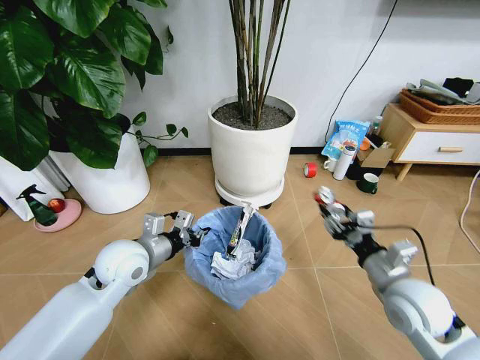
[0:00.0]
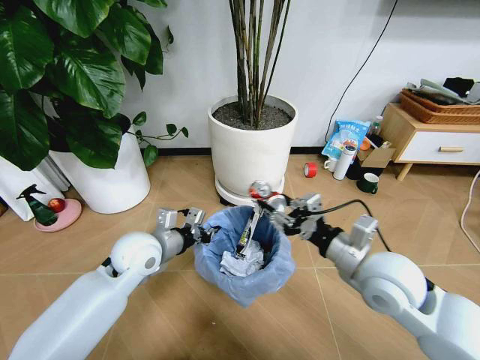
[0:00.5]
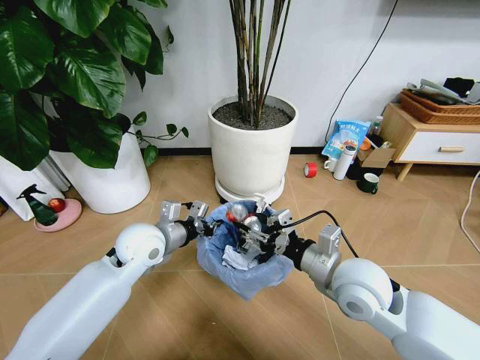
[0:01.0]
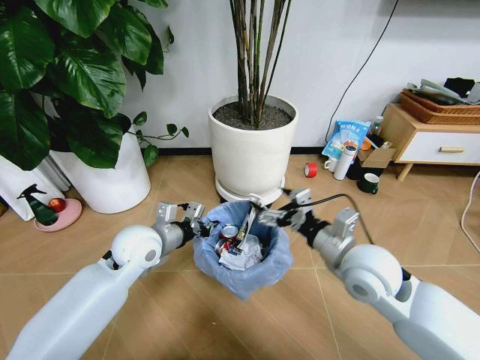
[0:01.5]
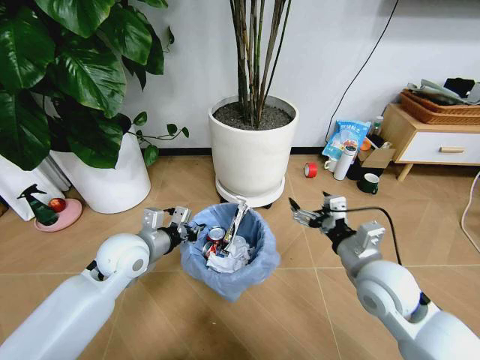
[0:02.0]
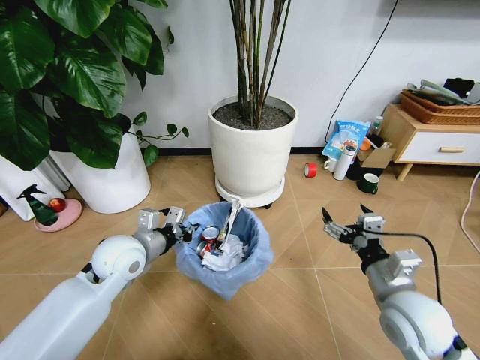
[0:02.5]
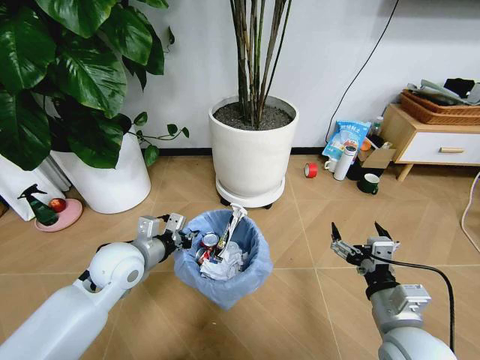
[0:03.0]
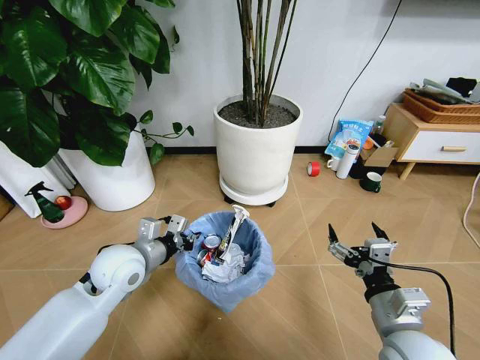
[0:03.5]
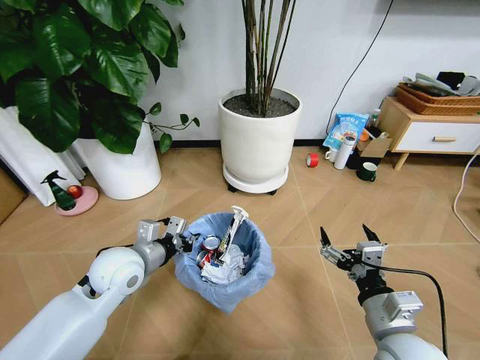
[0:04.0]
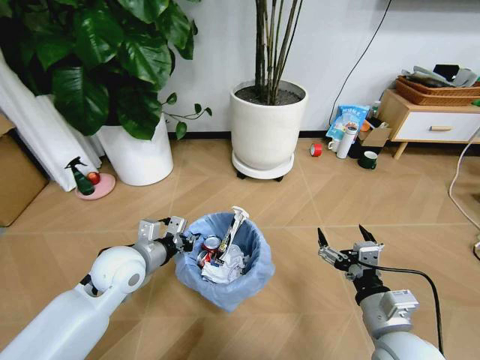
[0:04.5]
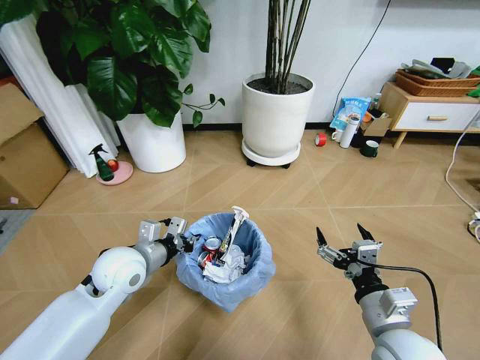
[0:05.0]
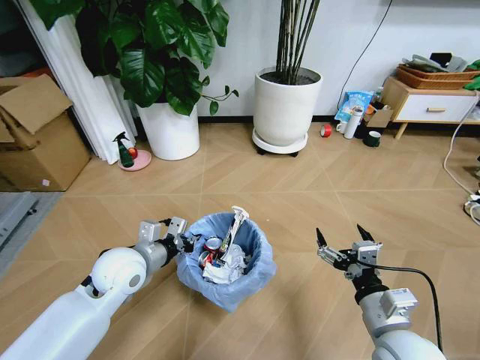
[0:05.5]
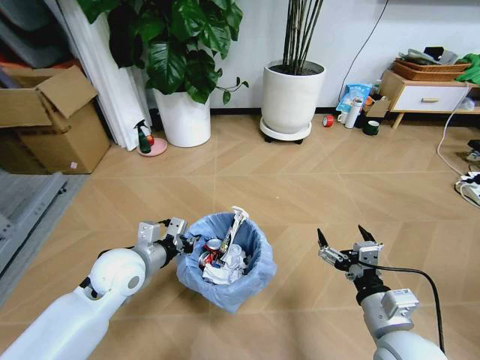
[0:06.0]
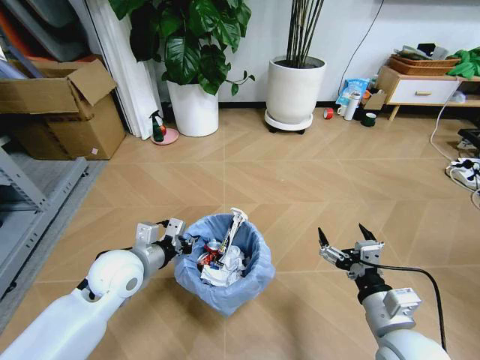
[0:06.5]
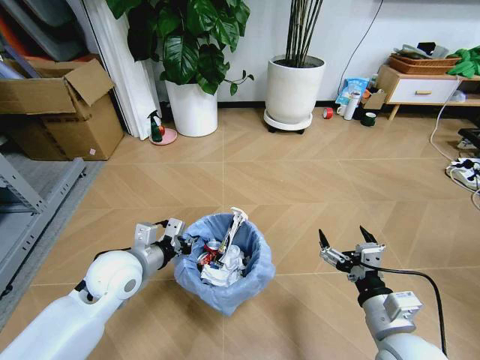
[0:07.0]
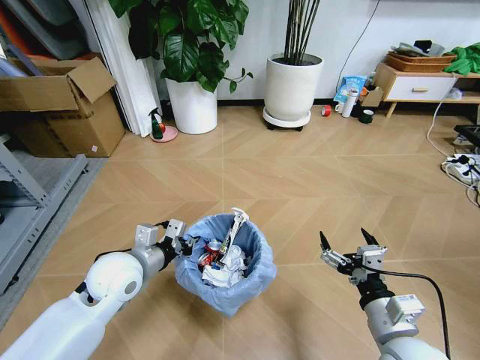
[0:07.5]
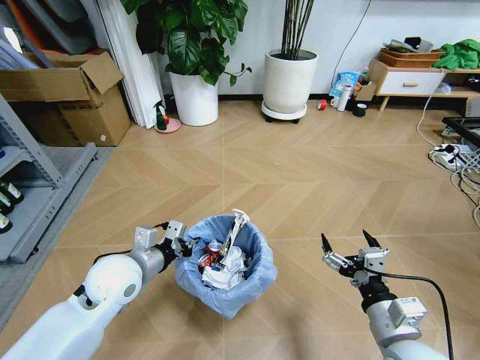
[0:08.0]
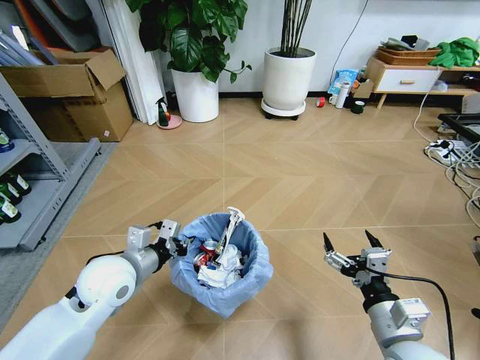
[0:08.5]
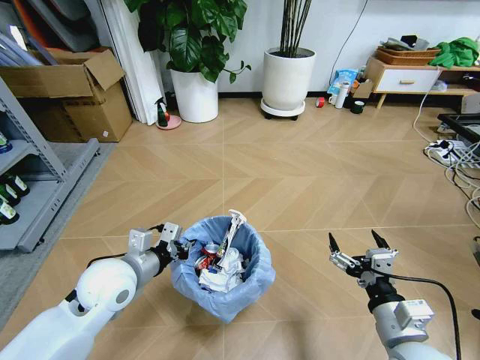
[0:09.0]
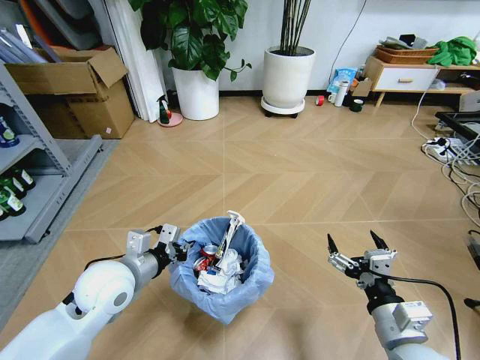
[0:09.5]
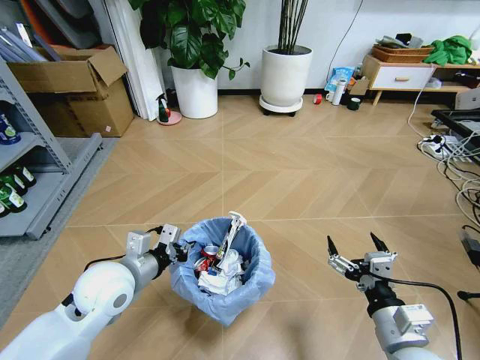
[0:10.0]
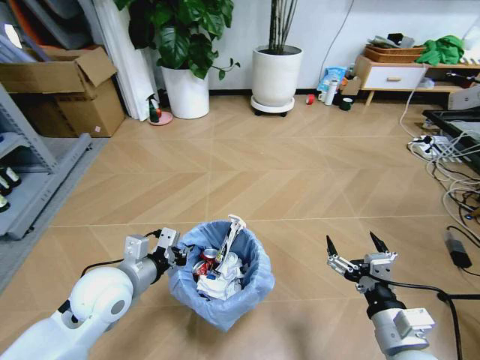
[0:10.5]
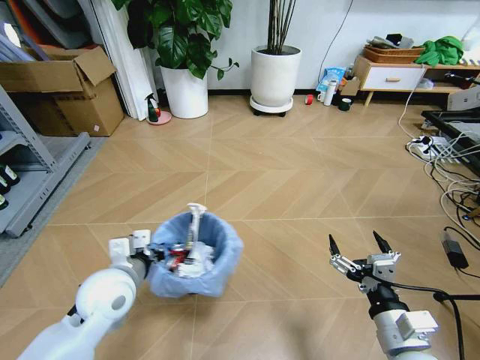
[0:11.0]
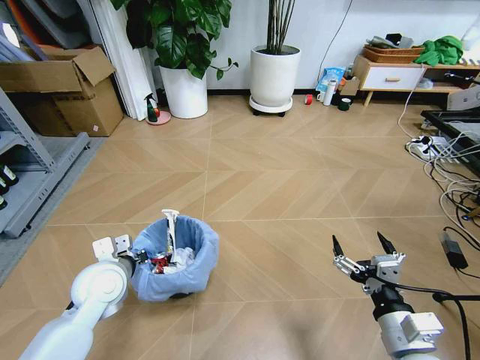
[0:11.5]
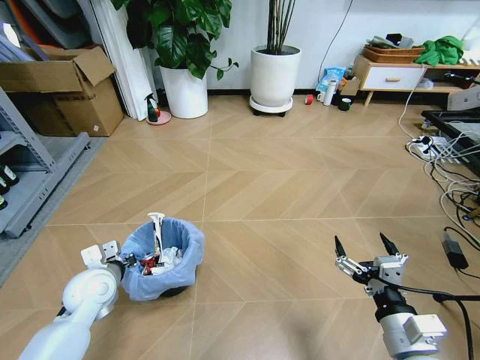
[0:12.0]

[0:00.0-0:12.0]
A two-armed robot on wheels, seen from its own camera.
Task of the whole recording: Pick up the trash bin and place the garbage on the floor into it.
0:00.0 to 0:02.0: The right gripper moves to the left, roughly 5 cm, and opens its fingers.
0:02.0 to 0:04.0: The right gripper travels backward by approximately 10 cm.
0:10.0 to 0:12.0: The left gripper goes roughly 10 cm downward and to the left.

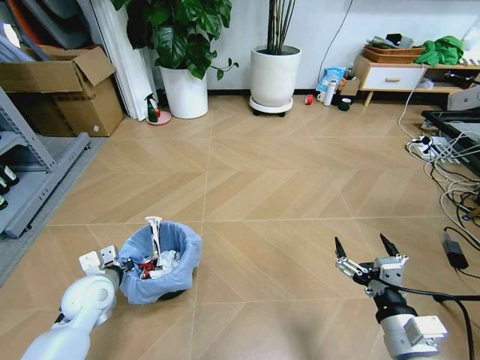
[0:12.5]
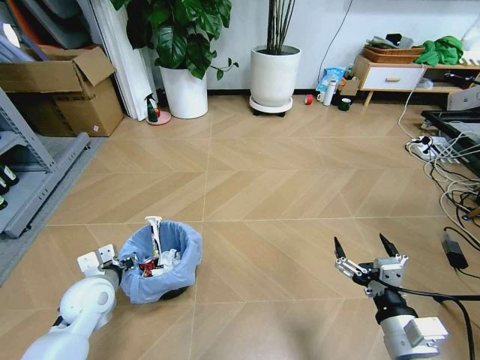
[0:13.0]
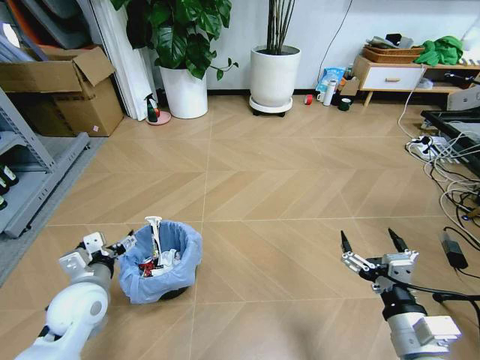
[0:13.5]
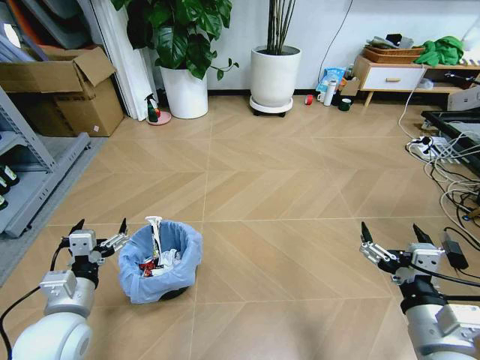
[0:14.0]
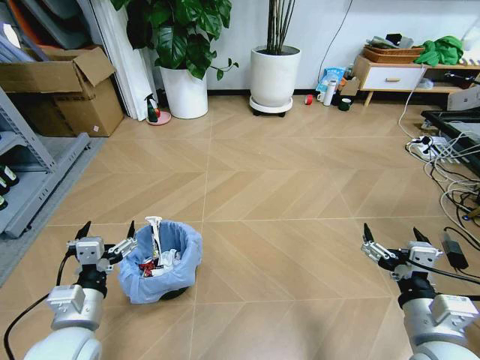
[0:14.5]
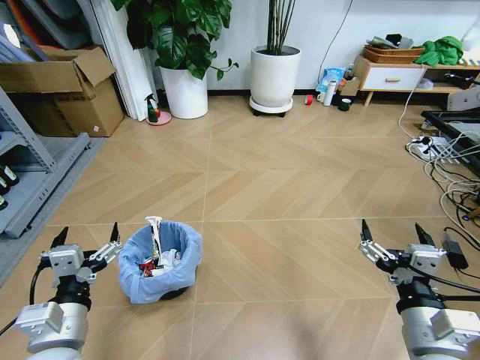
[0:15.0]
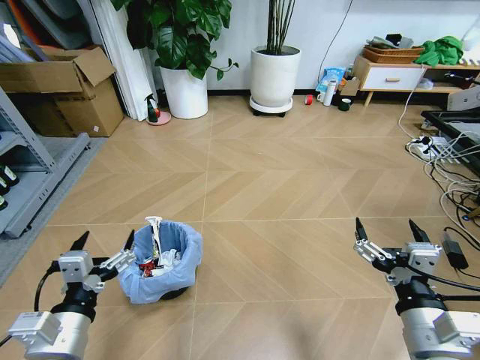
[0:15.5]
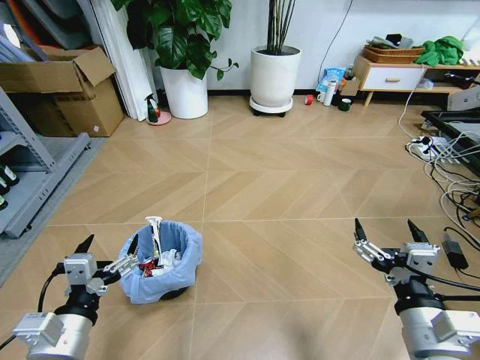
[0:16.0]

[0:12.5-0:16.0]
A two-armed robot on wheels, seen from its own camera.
Task of the whole recording: Pick up the trash bin and place the garbage on the floor into it.
0:12.5 to 0:14.5: The left gripper goes some 15 cm backward and upward, and opens its fingers.
0:14.5 to 0:16.0: The left gripper moves backward, approximately 5 cm.

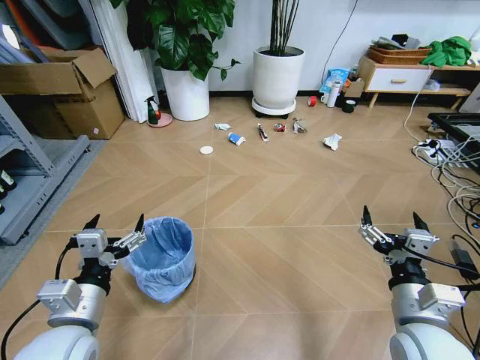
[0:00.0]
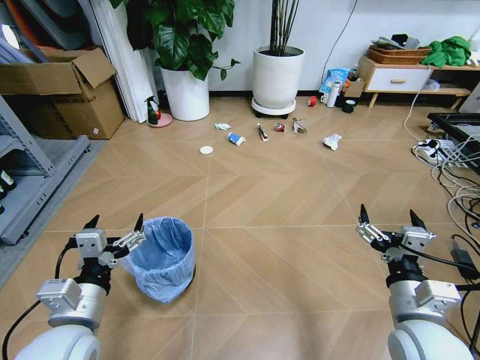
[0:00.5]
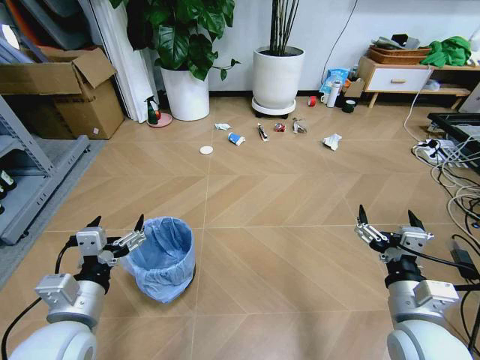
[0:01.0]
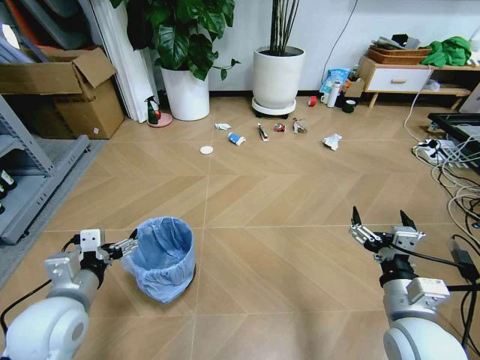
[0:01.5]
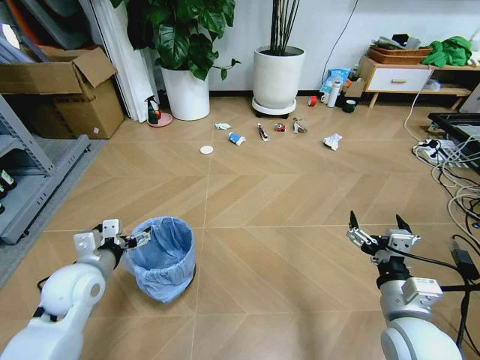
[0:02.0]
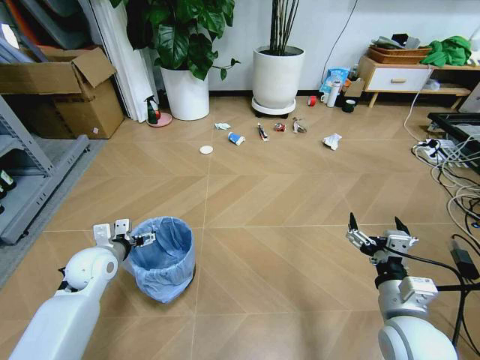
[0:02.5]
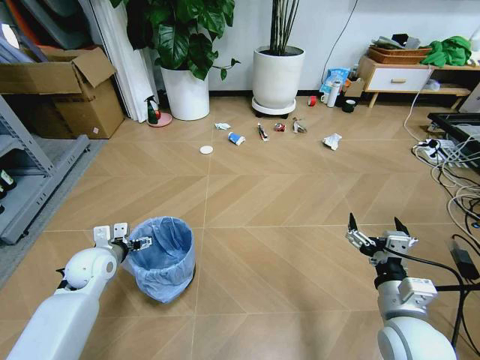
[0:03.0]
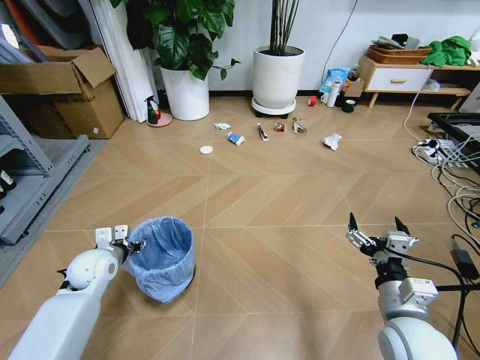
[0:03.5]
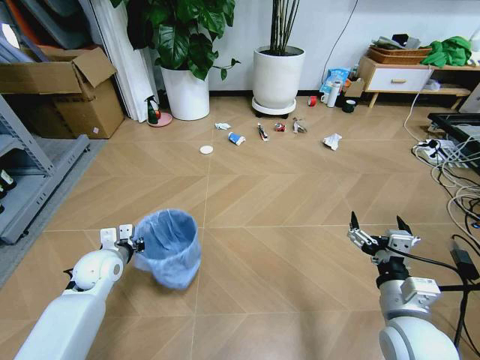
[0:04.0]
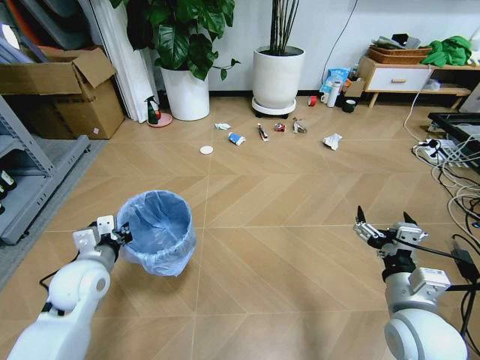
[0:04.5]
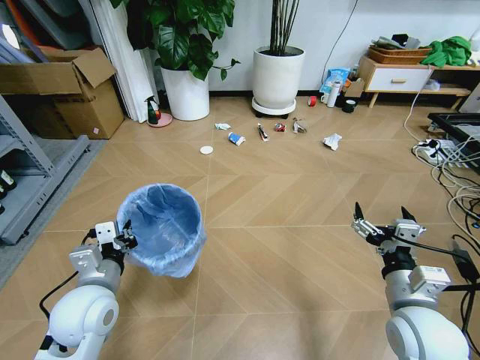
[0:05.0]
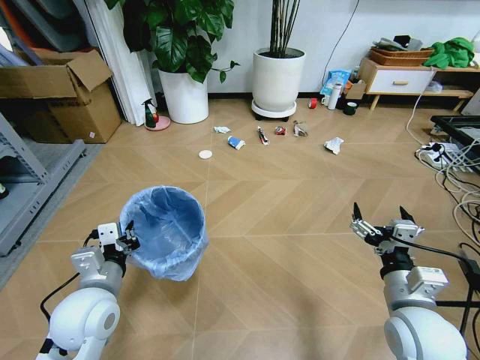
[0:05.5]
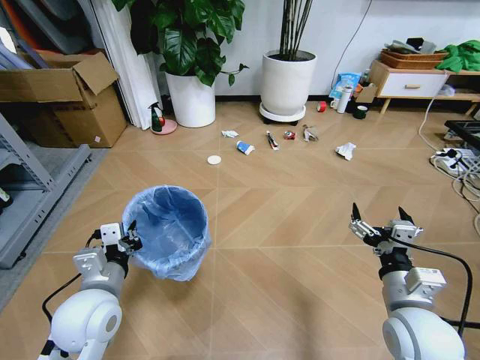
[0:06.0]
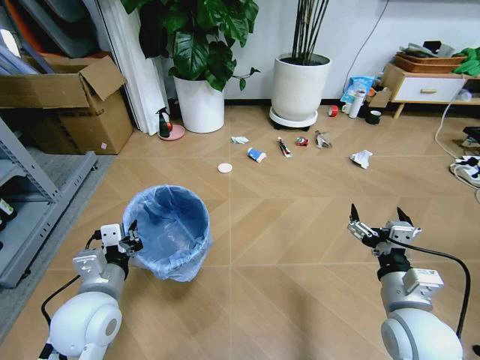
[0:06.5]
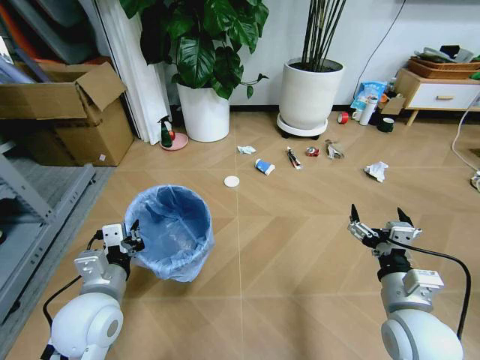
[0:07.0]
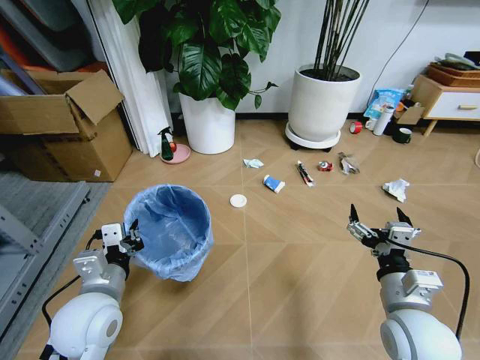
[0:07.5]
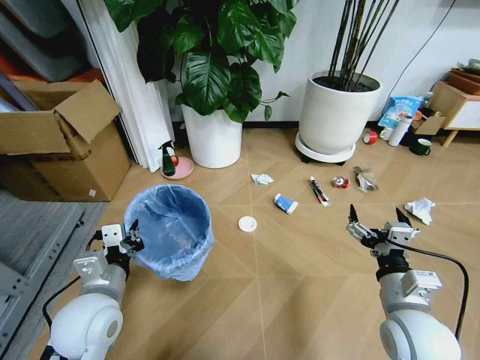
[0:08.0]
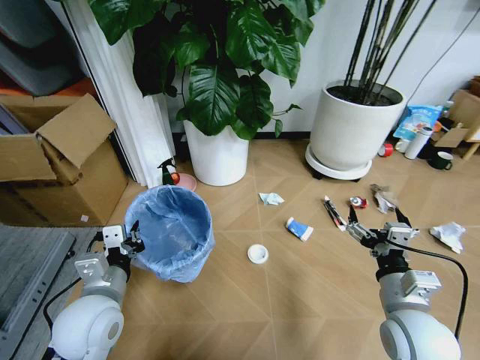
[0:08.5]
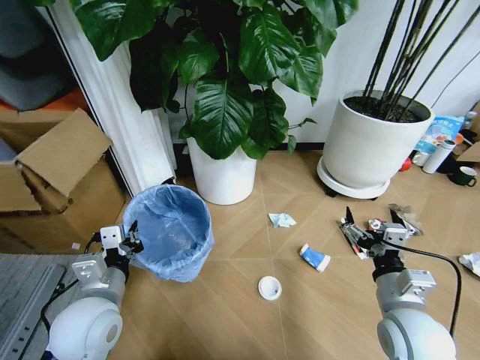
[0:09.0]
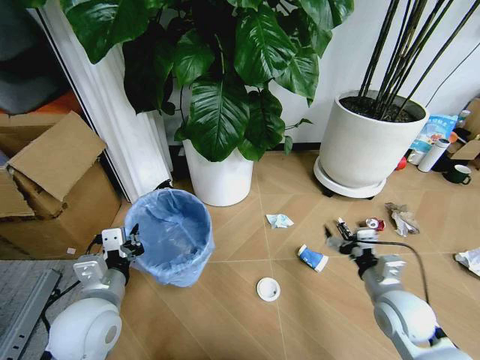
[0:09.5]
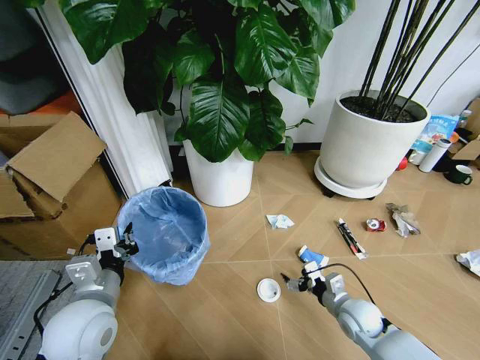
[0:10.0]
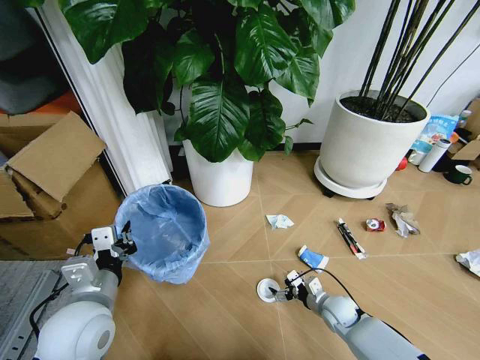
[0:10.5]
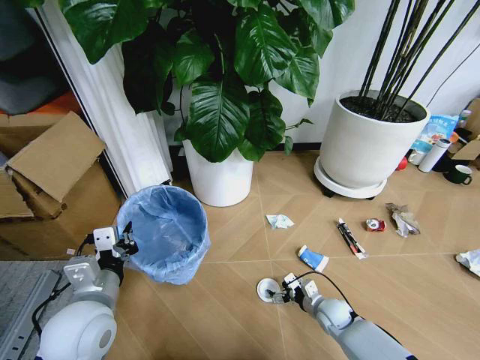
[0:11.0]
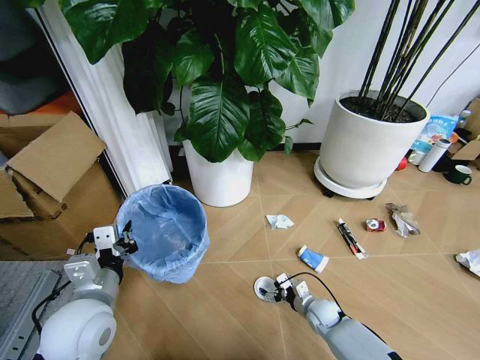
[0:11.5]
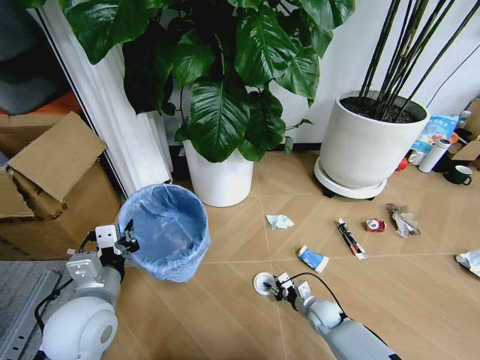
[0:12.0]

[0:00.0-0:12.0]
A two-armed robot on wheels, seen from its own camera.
Task of the whole recording: Pick up the trash bin and place the garbage on the floor into it.
0:02.0 to 0:04.0: The left gripper travels forward and downward by some 10 cm, and closes its fingers.
0:04.0 to 0:06.0: The left gripper is displaced backward, upward and to the right by some 20 cm.
0:08.0 to 0:10.0: The right gripper shifts roughly 20 cm downward and forward.
0:10.0 to 0:12.0: The right gripper goes roughly 10 cm downward, and closes its fingers.
